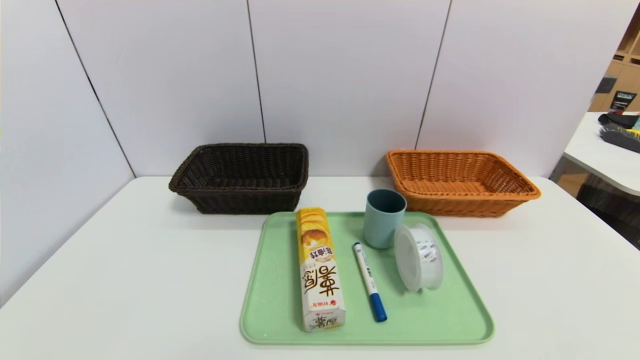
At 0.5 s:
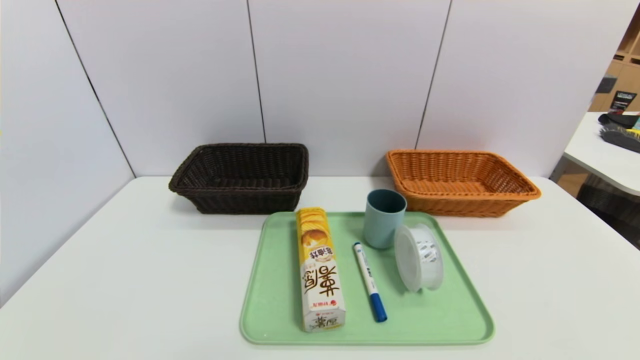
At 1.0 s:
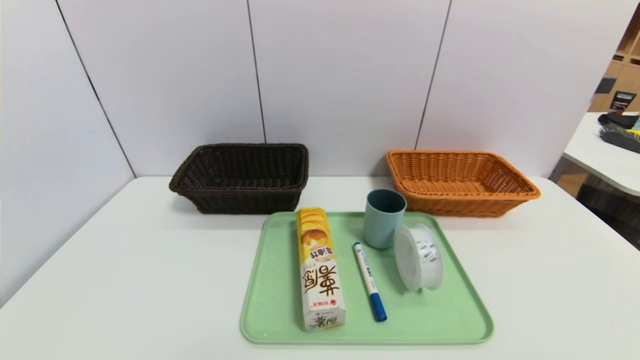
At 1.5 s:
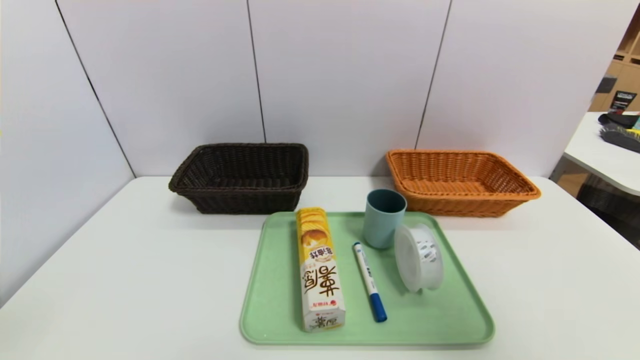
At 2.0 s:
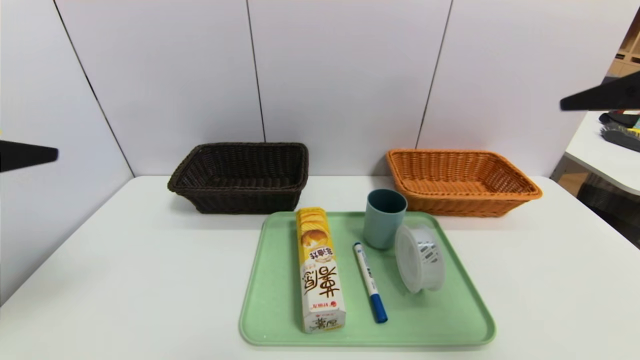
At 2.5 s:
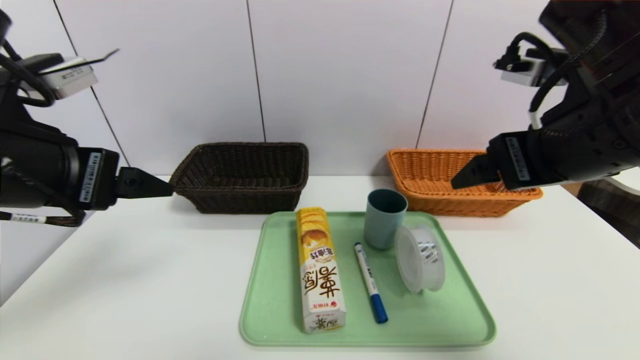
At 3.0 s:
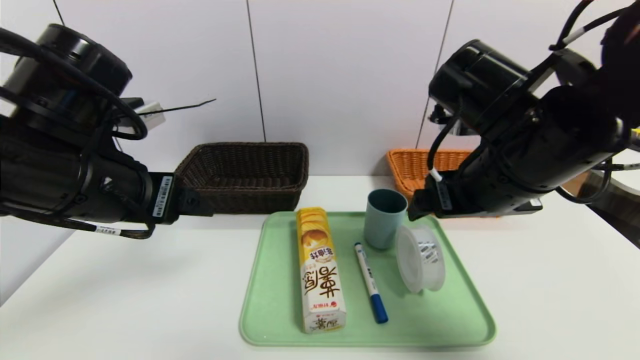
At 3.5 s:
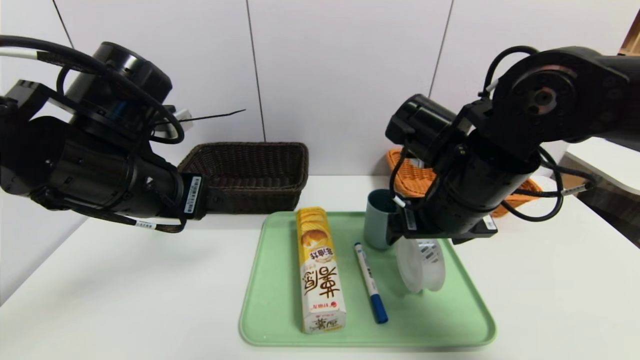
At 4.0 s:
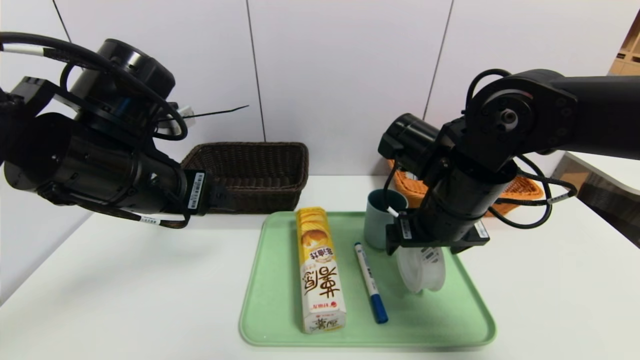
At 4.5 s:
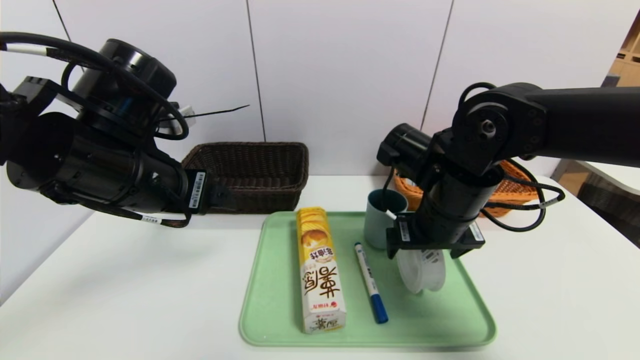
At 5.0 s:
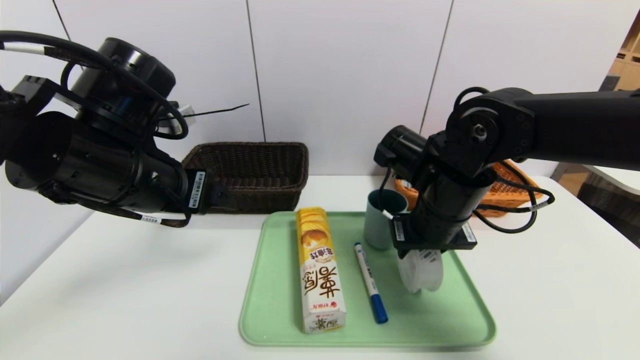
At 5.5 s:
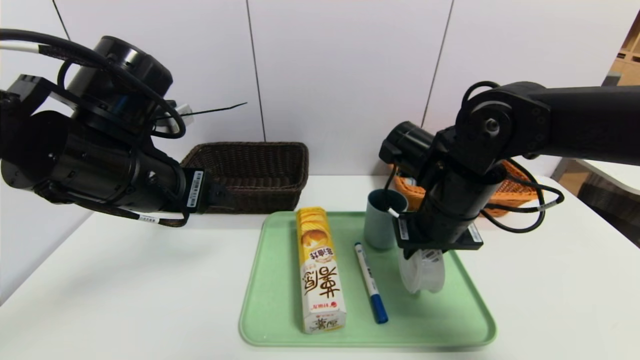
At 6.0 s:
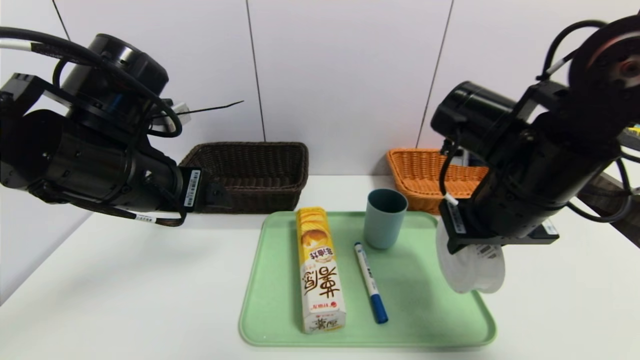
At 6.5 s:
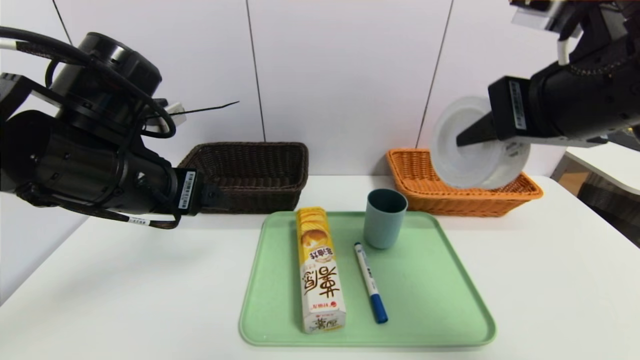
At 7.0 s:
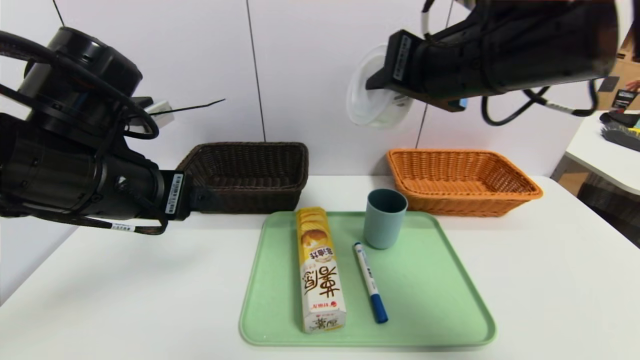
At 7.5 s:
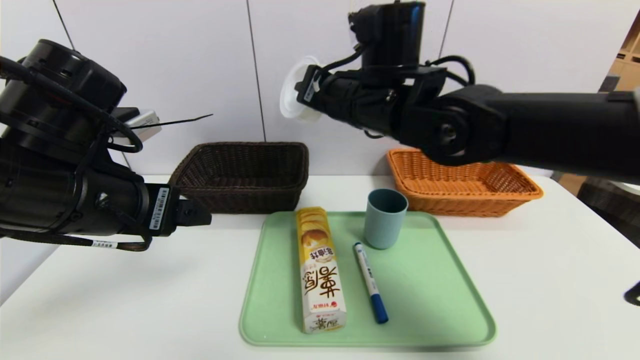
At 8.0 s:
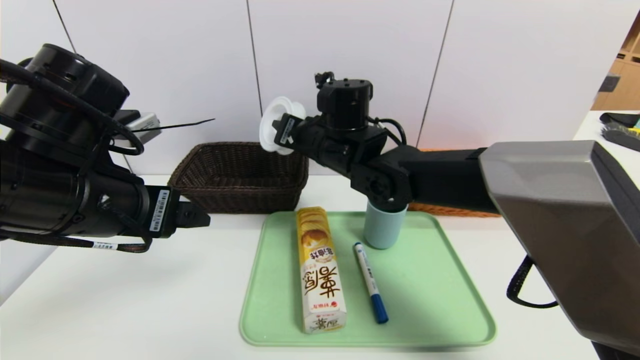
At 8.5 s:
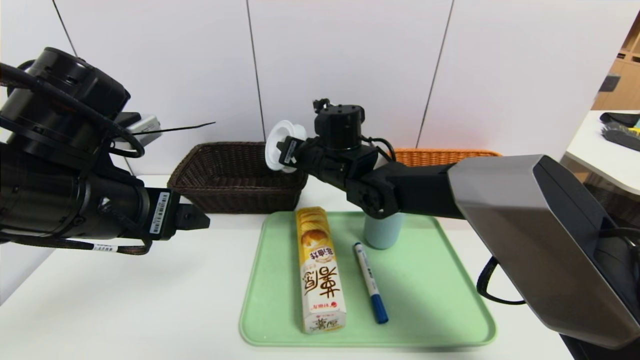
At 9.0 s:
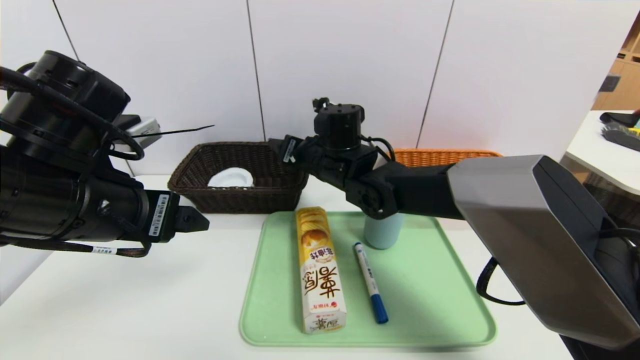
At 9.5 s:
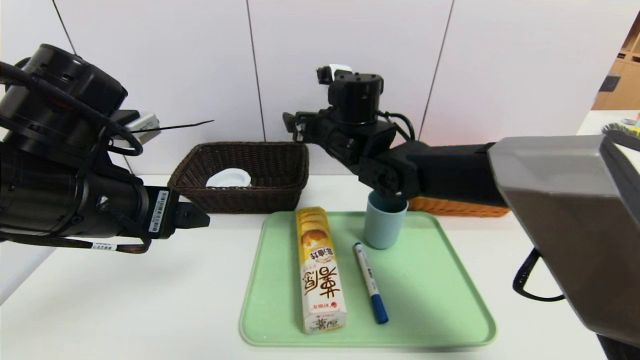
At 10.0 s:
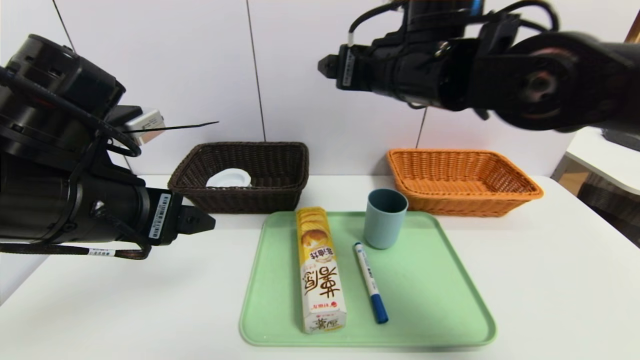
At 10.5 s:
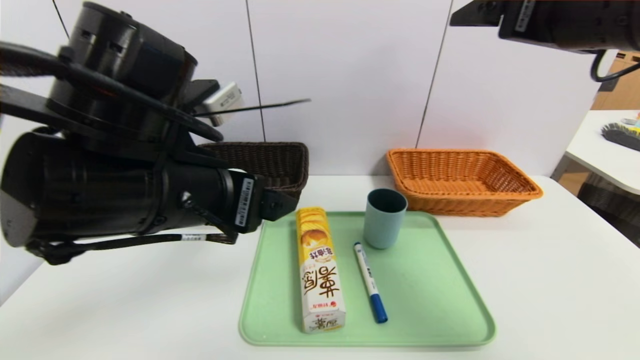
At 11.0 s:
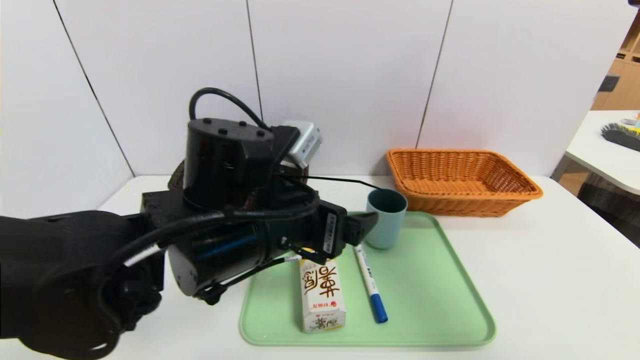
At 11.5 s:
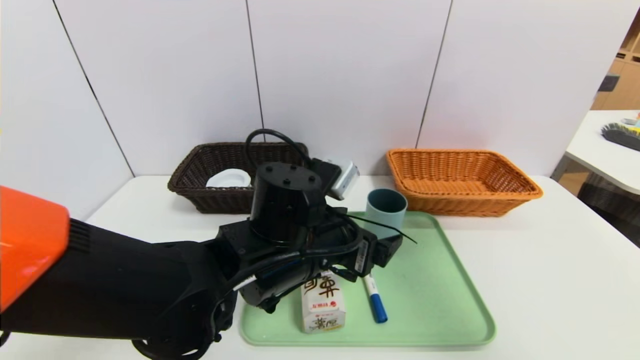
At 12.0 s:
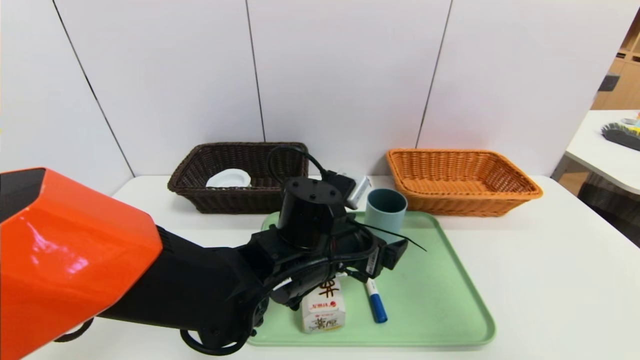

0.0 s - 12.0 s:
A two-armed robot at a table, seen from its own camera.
Task of the whole recording: place the food in the right basket with the right gripper, and place the non food items in the left basket with the left gripper.
Step, 0.0 s - 9.0 s: Grasp the tape and put it in the left basket.
0.0 s - 2.0 s: The two grippers go some 30 cm upward and forward.
2.0 s - 4.0 s: The right gripper shifts roughly 25 cm downward, to the left and forward, while the left gripper is displaced forward, to the right and downward by some 15 cm.
4.0 s - 6.0 s: The right gripper shifts roughly 5 cm upward, and closes up.
6.0 s - 8.0 s: The right gripper shifts roughly 25 cm to the left and forward.
8.0 s - 10.0 s: The right gripper travels upward, to the right and backward by approximately 15 cm, and opens its fingers.
10.0 s - 12.0 s: The right gripper heads to the right and backward, covering some 25 cm. Meanwhile the left gripper goes some 25 cm to the right and downward.

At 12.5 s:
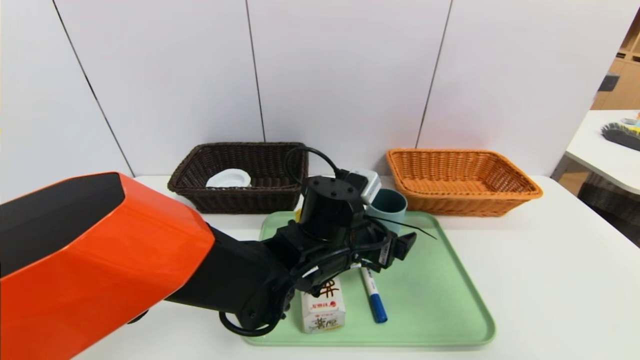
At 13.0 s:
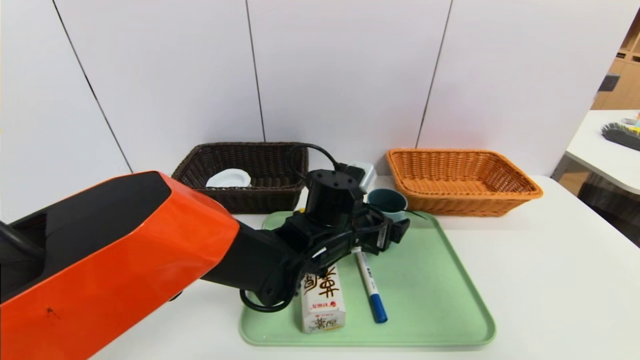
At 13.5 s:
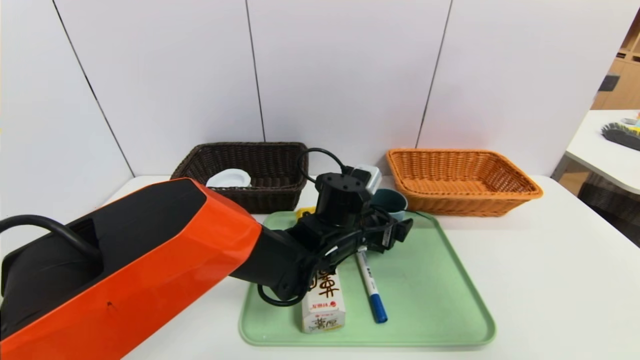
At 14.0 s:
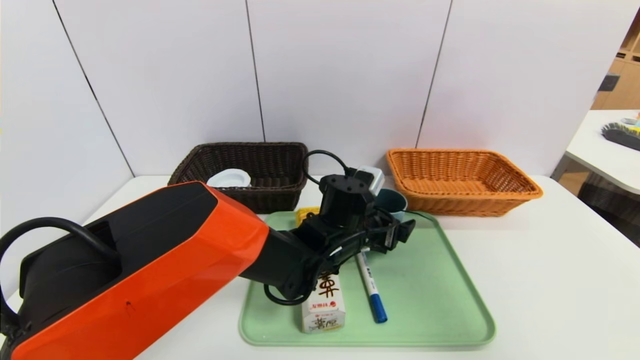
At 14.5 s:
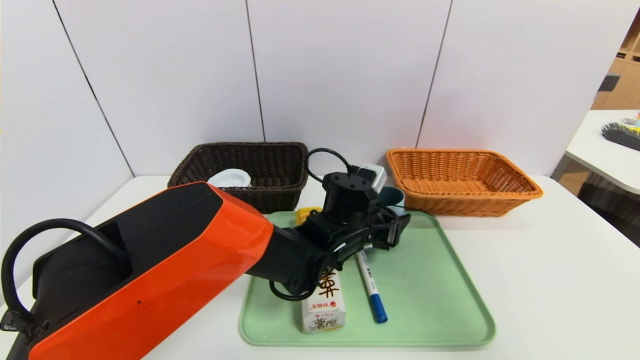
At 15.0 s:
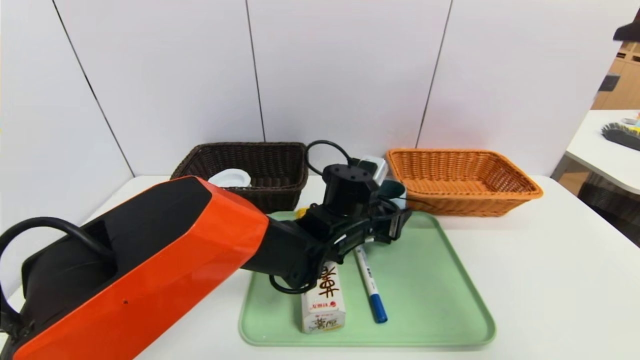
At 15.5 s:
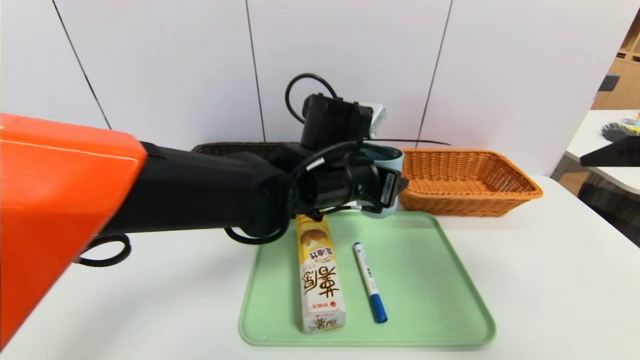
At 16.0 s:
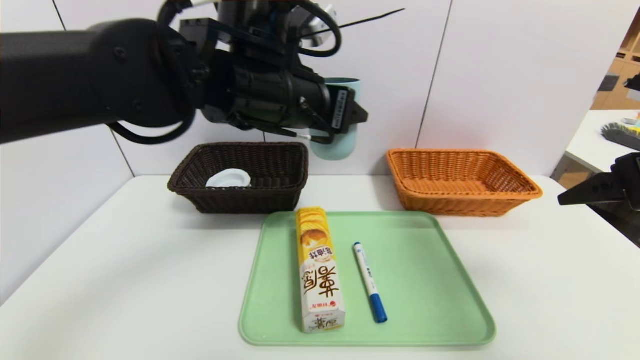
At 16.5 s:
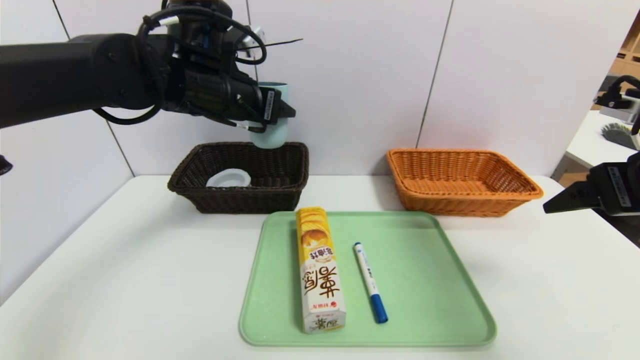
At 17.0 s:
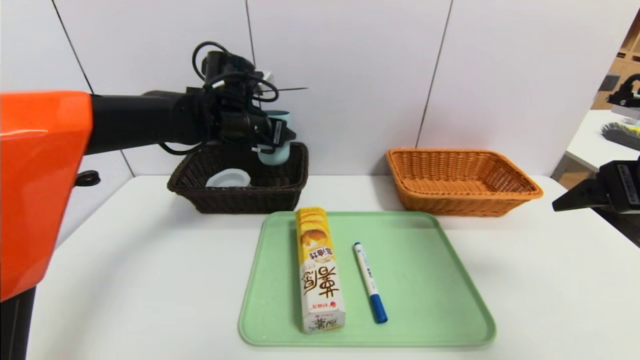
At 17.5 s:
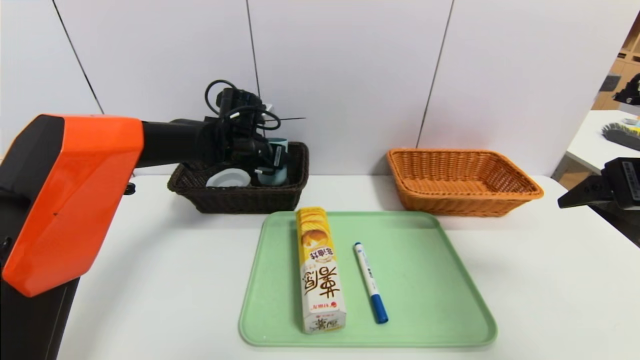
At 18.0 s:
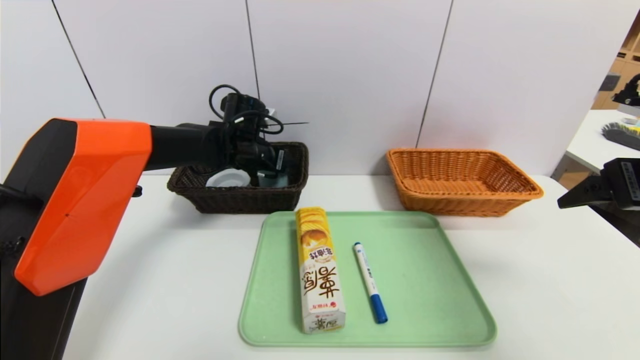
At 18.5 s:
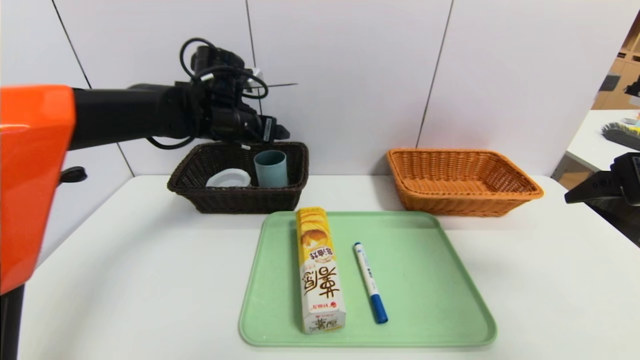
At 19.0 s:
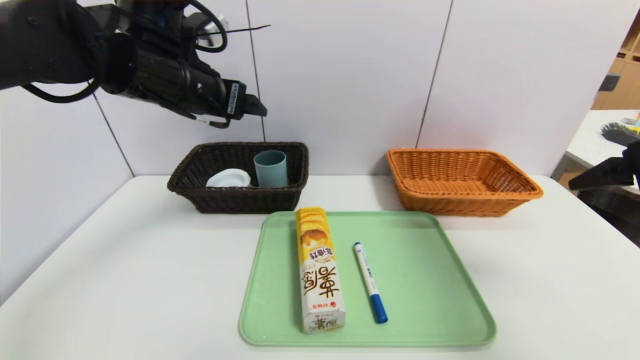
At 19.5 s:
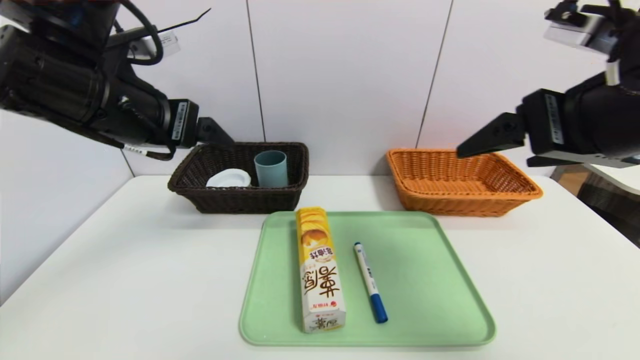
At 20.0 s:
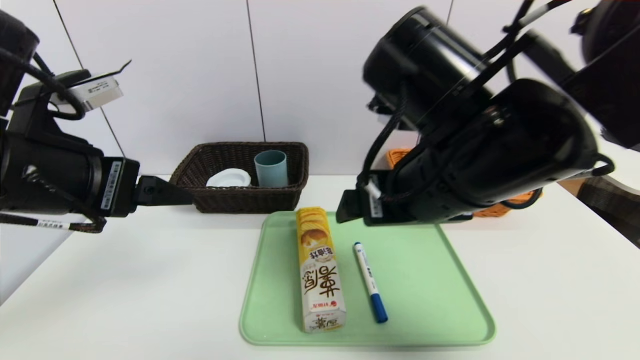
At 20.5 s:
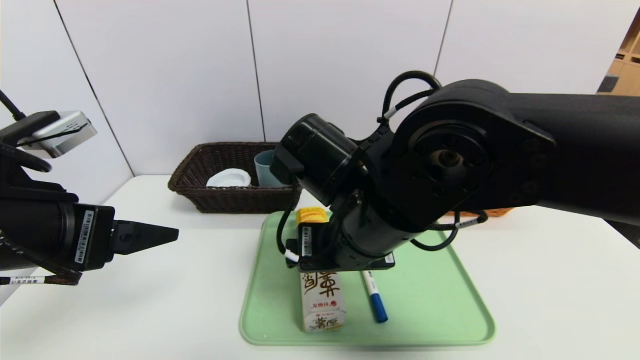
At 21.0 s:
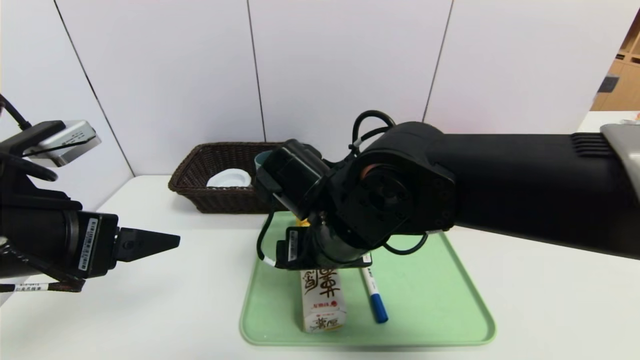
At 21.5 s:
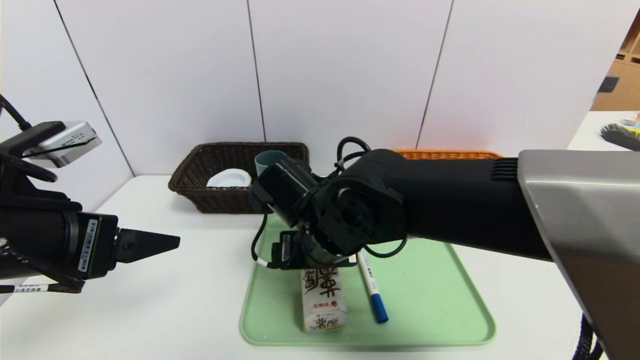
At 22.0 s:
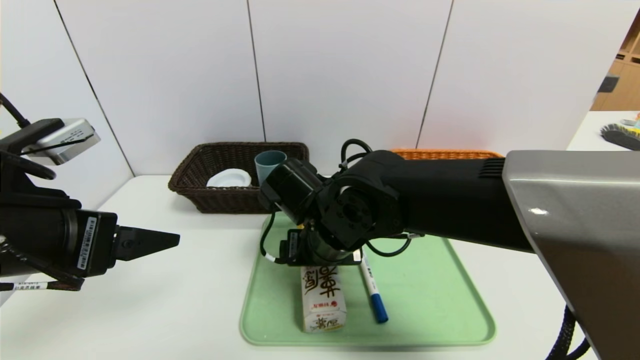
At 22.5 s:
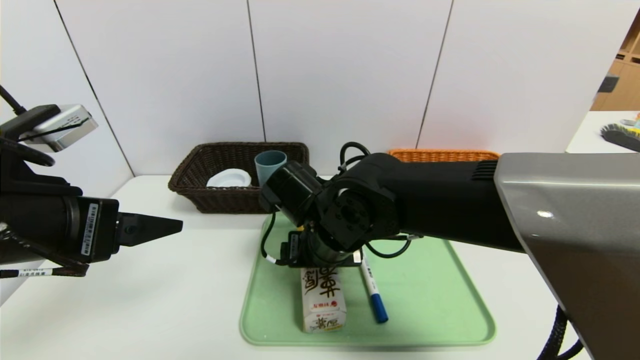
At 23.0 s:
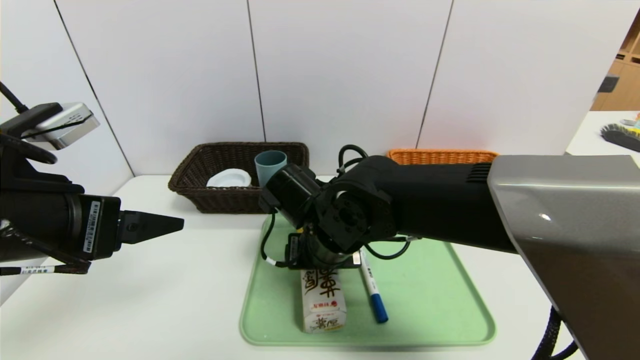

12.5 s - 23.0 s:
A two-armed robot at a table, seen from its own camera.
Task of the whole recording: place the food in the right basket with the right gripper, and place the non food items in the left basket with the left gripper.
Step, 12.5 s - 18.0 s: Grasp the blue cup and put it in the left basket.
12.5 s - 14.5 s: The left gripper travels forward by some 5 cm.
14.5 s - 16.5 s: The right gripper moves downward, approximately 10 cm. Meanwhile the left gripper is displaced upward and to the left by roughly 25 cm.
16.5 s - 19.0 s: The left gripper reaches some 10 cm downward, then returns.
19.0 s - 21.0 s: The right gripper shifts some 30 cm to the left. The left gripper goes roughly 20 cm backward.
21.0 s - 23.0 s: The right gripper ends up about 5 cm from where it was.
